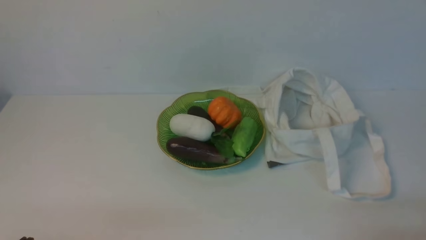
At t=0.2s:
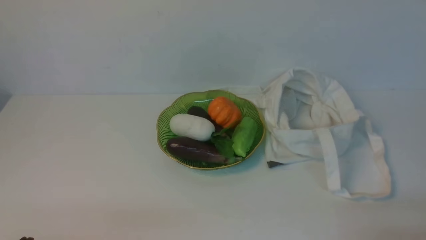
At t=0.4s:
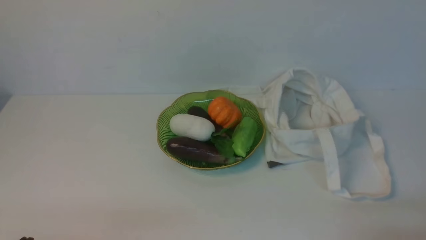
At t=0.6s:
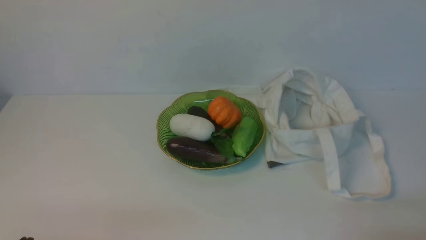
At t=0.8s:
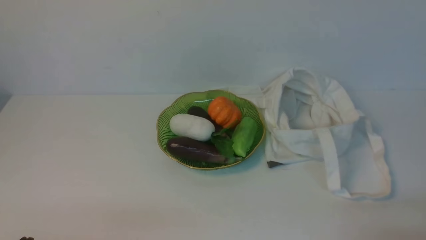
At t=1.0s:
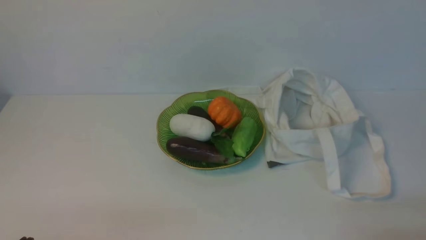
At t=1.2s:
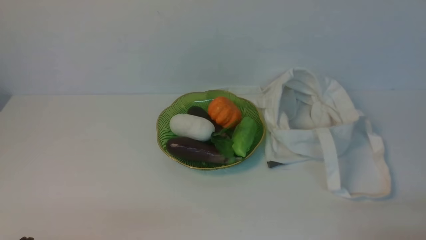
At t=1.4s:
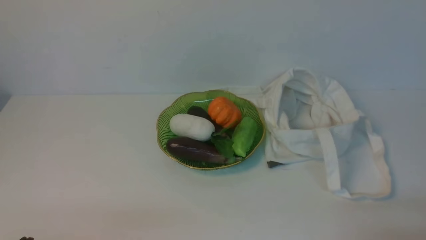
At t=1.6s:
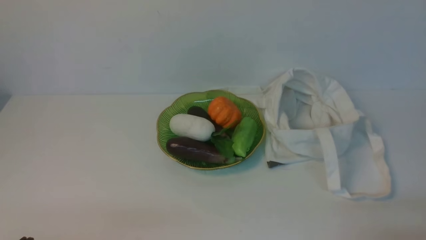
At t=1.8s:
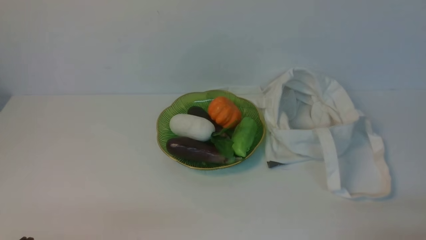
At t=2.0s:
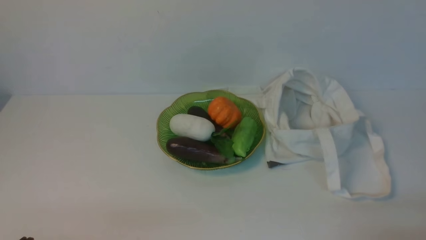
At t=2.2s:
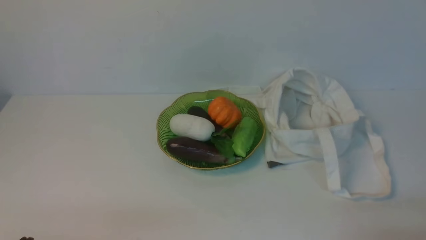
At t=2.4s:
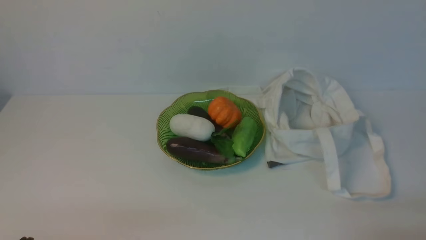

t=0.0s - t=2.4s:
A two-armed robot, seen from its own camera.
Task of the whole recording: take vegetables from cloth bag on white table place on plate.
t=0.0s - t=2.4s: Neither gripper changes place.
